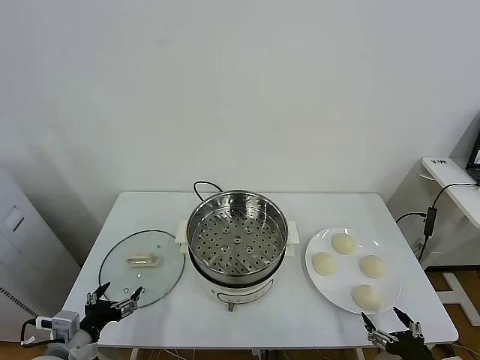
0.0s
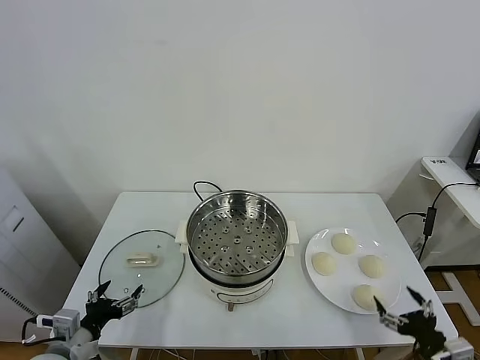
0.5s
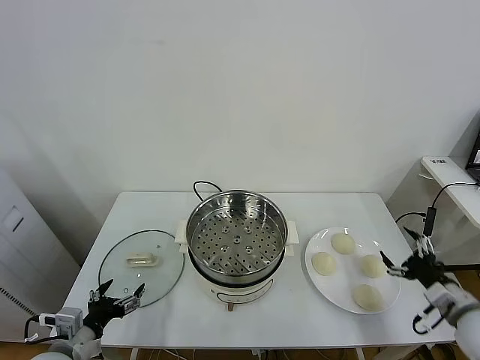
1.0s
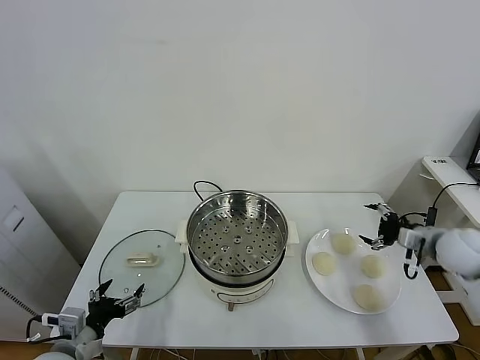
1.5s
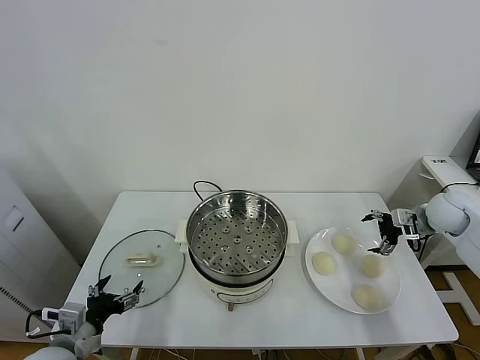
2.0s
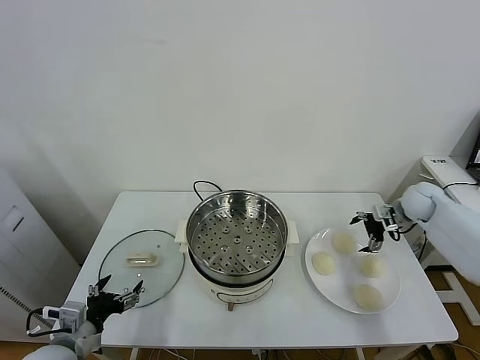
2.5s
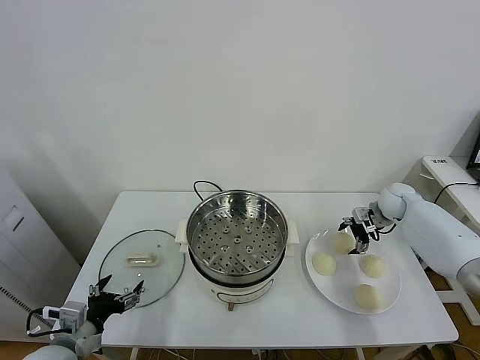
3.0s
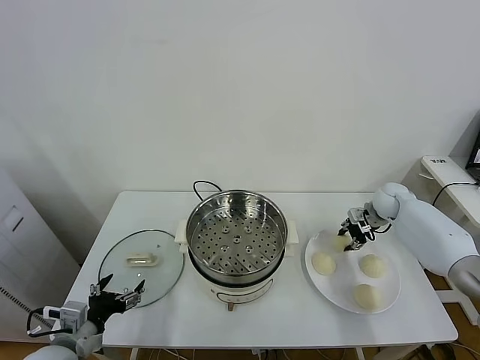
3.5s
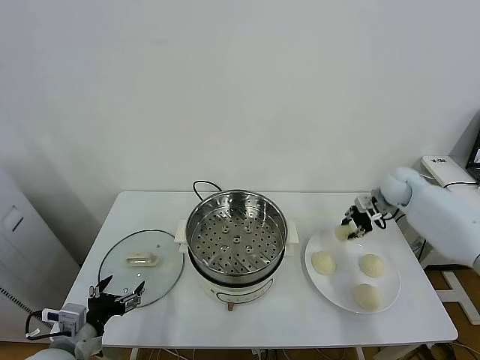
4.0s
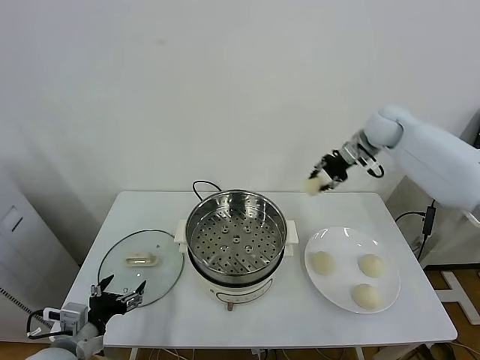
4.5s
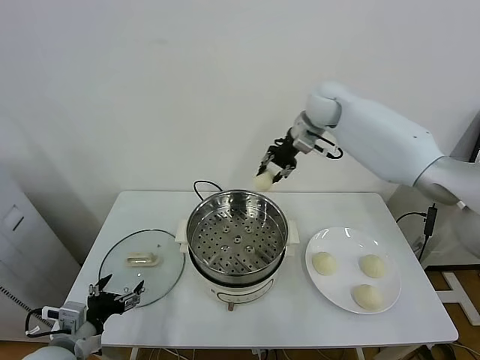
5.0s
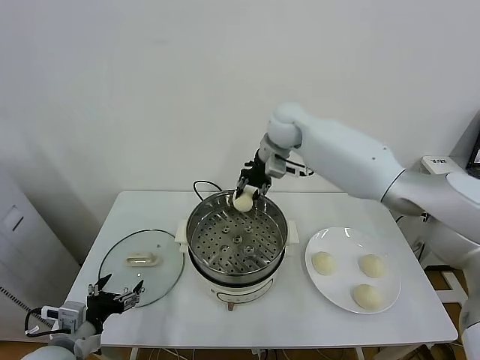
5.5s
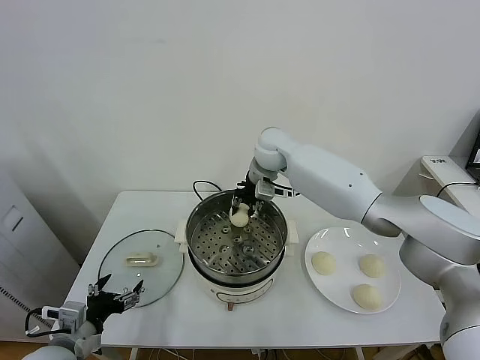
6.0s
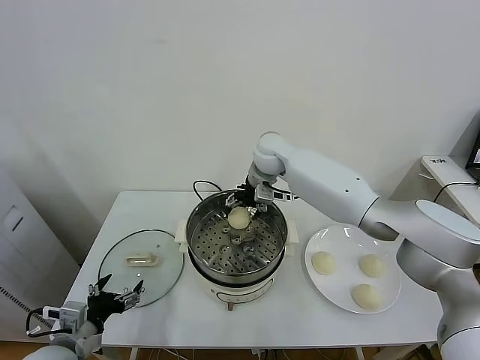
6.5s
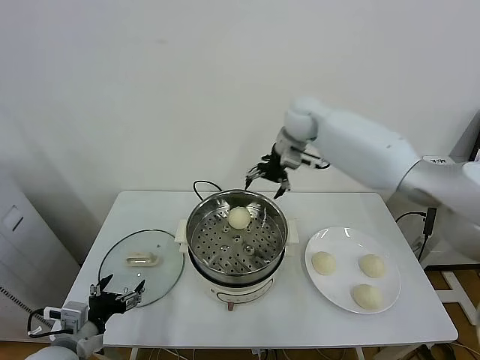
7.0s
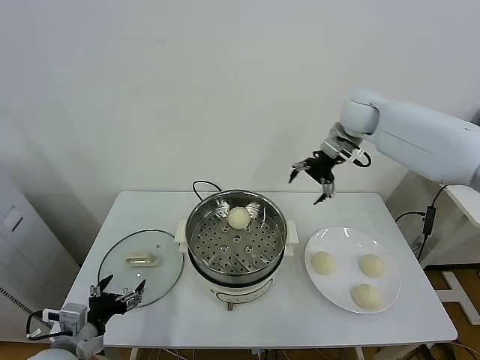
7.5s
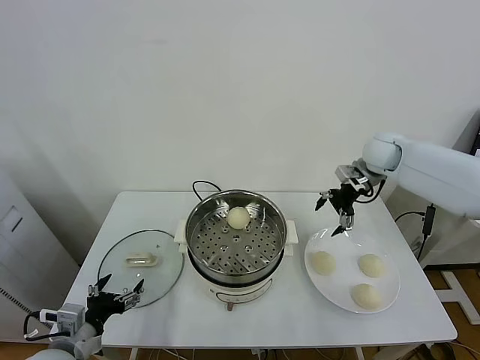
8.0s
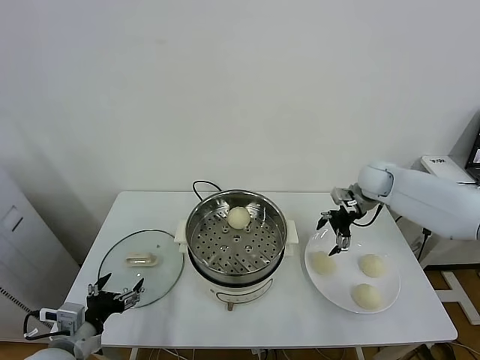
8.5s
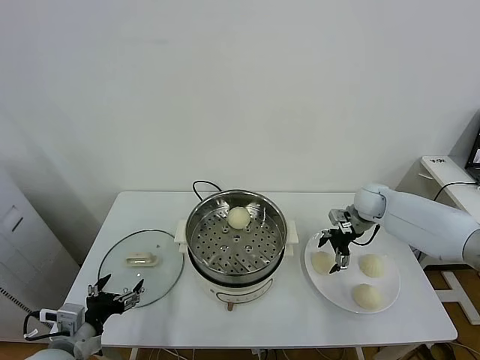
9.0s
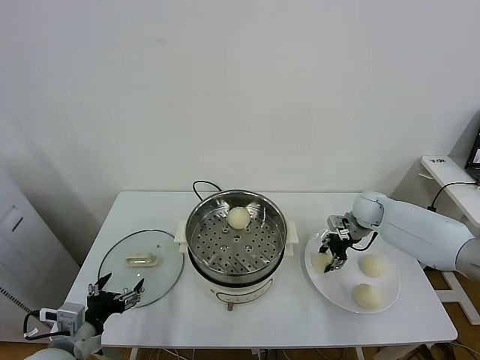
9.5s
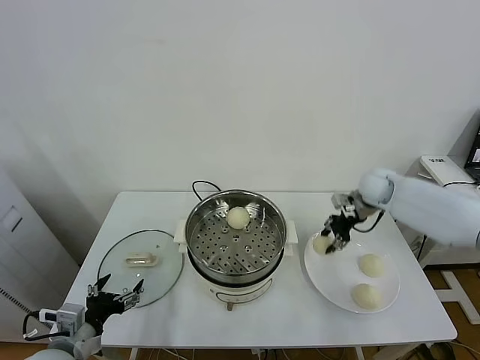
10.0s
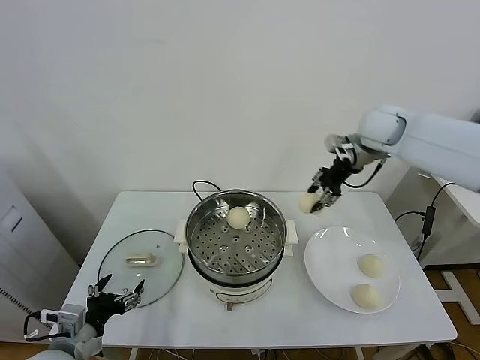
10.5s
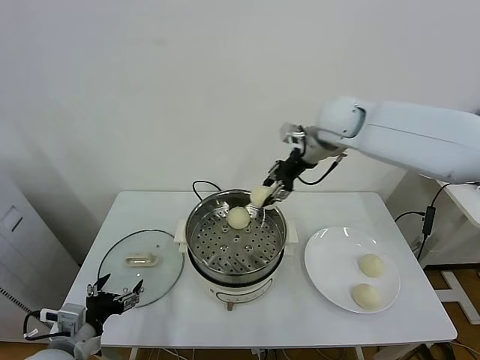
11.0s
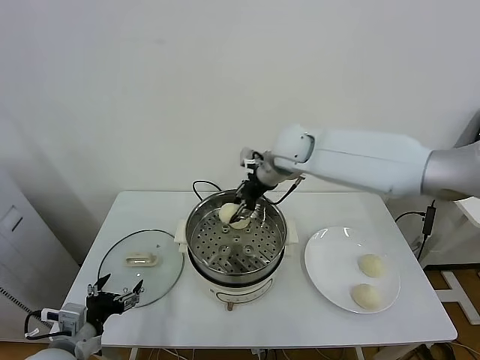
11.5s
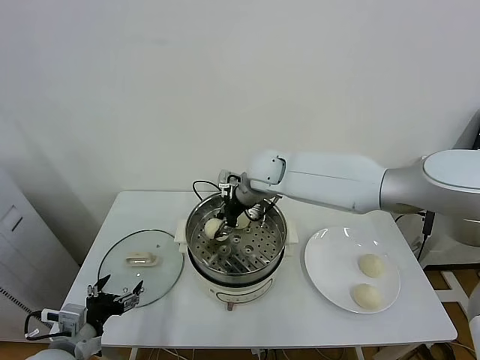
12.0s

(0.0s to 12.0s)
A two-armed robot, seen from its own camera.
Task of the whole recording: take steamed baozi put them in steamer.
Step, 0.0s - 3.0s: Grasp the baozi in the plate with right gripper.
Step, 3.5s - 6.5s: Place the baozi on the steamer with right gripper.
Step, 7.0s - 9.0s: Grasp the baozi in the plate with right gripper.
2.0s - 4.0s: The right gripper moves forward and to the left, approximately 10 cm, and closes.
4.0s - 6.0s: The right gripper heads to the left, covering some 35 cm.
6.0s - 8.0s: The right gripper moves to the right, roughly 25 cm, and opens its fingers.
8.0s - 10.0s: The right gripper travels downward and back again, about 15 cm each way, and closes its fingers.
10.0s - 12.0s: The right gripper is displaced to the left by roughly 30 cm.

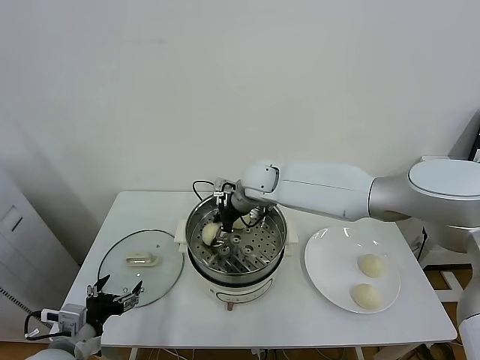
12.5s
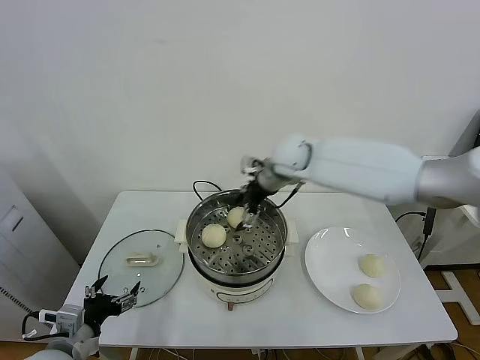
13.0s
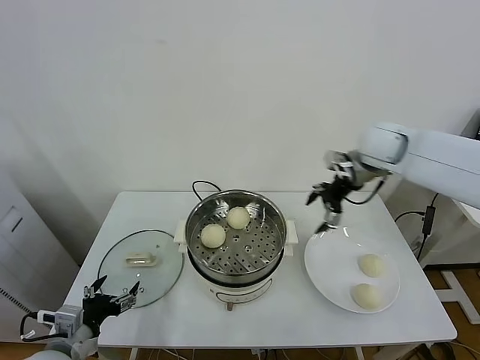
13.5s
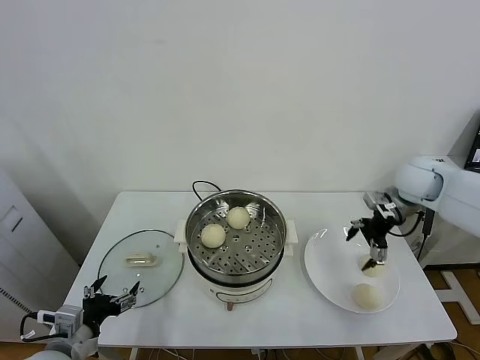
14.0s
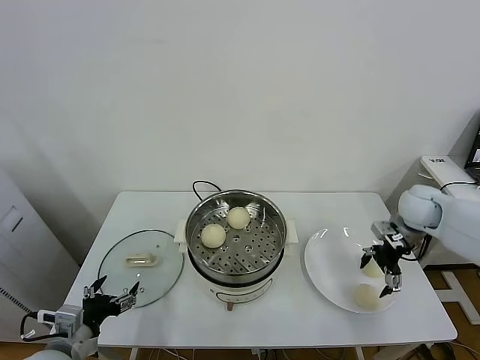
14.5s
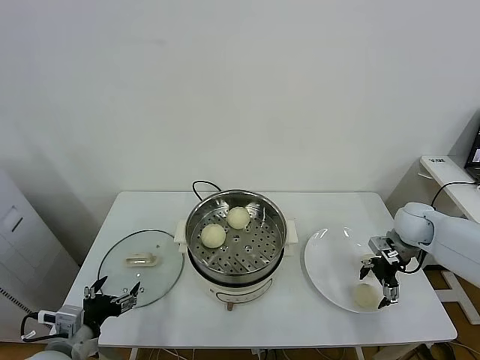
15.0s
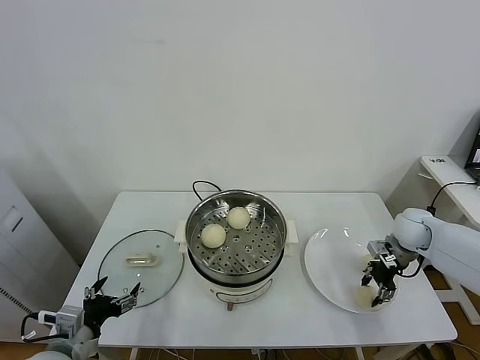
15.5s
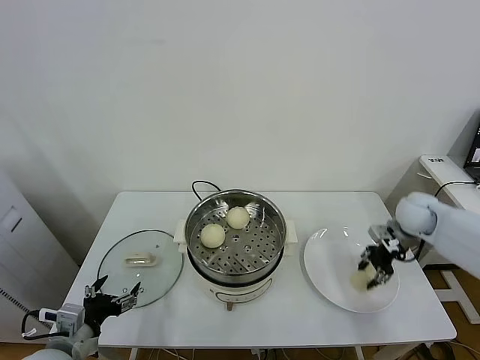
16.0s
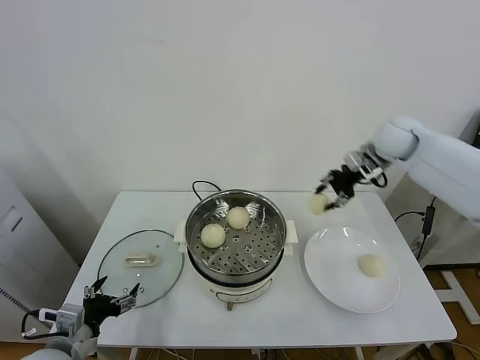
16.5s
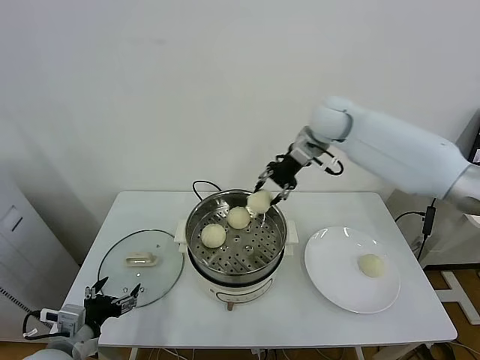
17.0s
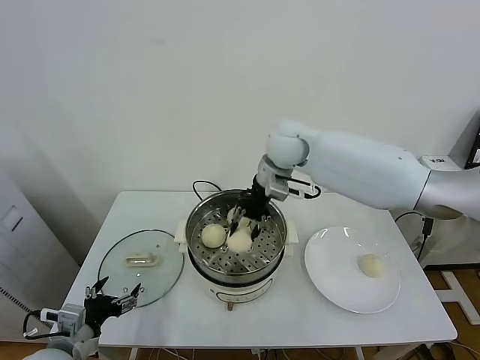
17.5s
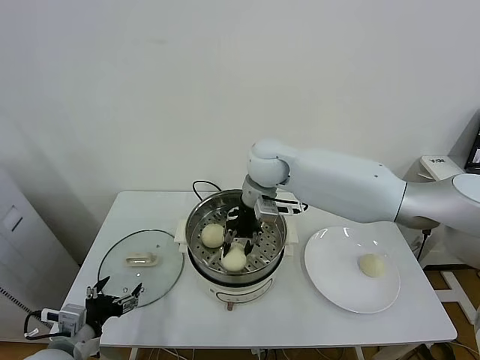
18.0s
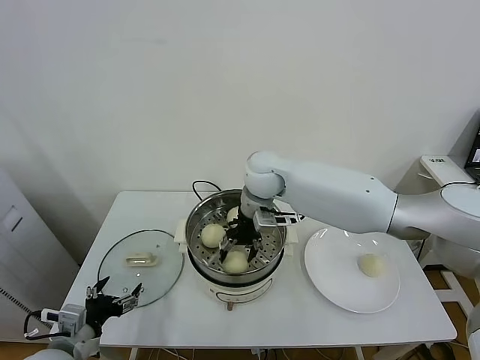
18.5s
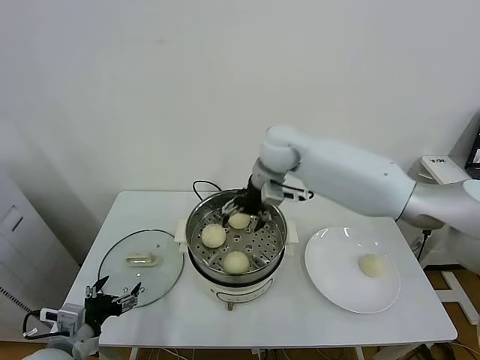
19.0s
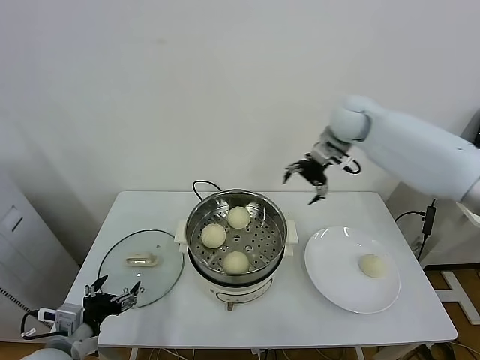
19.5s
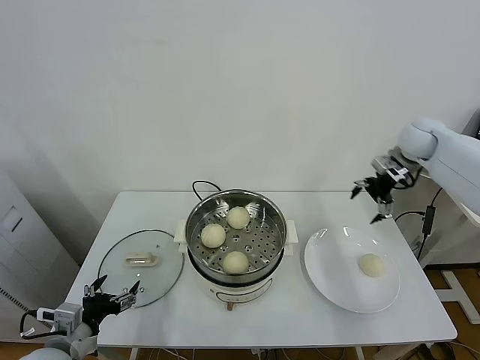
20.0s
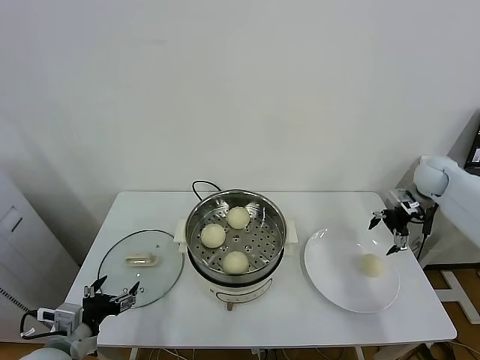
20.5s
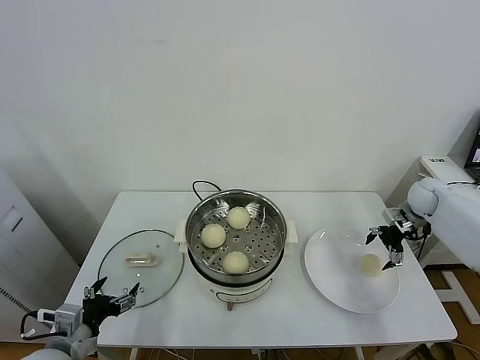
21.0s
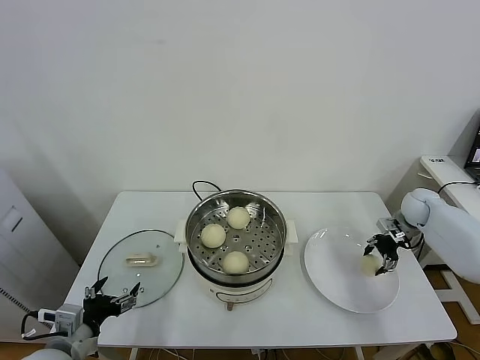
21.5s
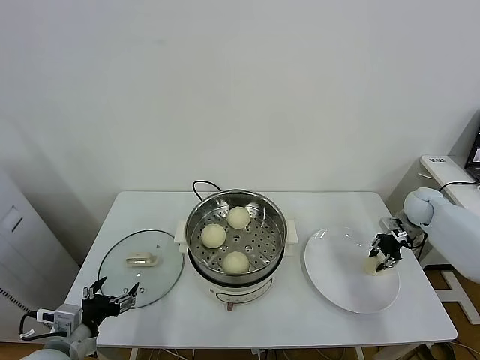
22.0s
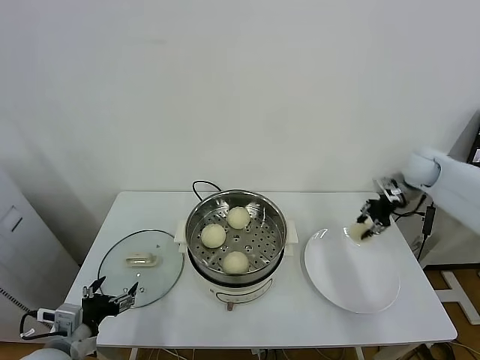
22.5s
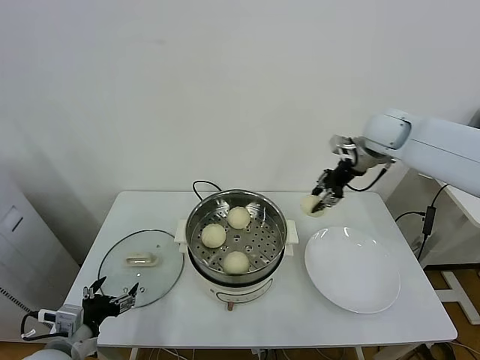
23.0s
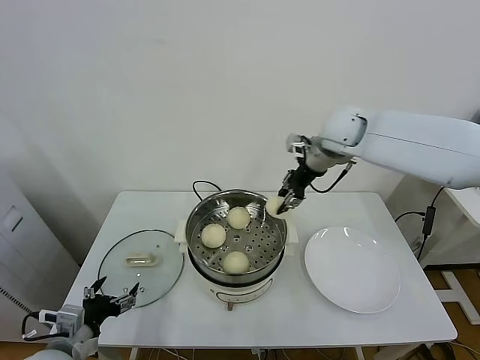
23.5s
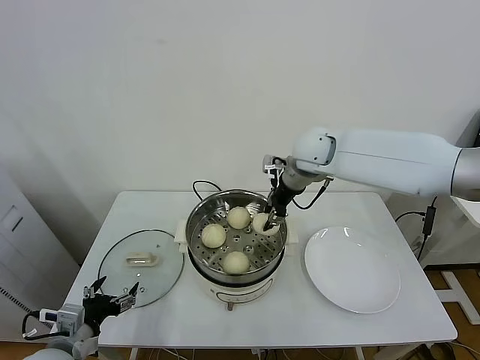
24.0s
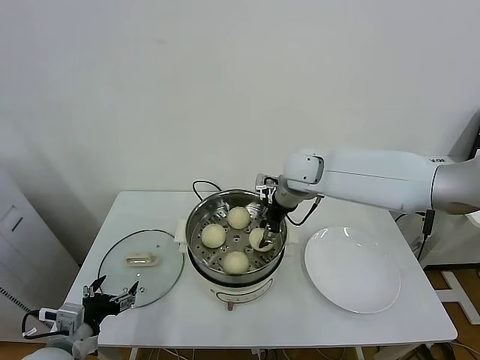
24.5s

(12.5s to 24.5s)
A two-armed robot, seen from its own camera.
Task of the whole recording: take steamed baozi put them in steamer.
Step, 13.0s - 15.0s: Grasp the baozi in the plate with right gripper.
Step, 15.5s - 18.5s: Place the baozi on the steamer with right gripper.
Step, 19.0s - 21.5s: Grasp the baozi in the plate with right gripper.
12.5s - 14.5s: The right gripper travels to the right by approximately 35 cm.
14.5s - 16.5s: The right gripper moves upward, to the left and forward, approximately 20 cm, and closes up.
16.5s - 18.5s: The right gripper is displaced to the left by some 30 cm, and opens its fingers.
18.5s - 20.5s: The right gripper heads to the right, covering roughly 40 cm.
20.5s - 22.5s: The right gripper moves to the left and upward, approximately 10 cm, and closes.
22.5s - 24.5s: The right gripper heads to the left, covering approximately 30 cm.

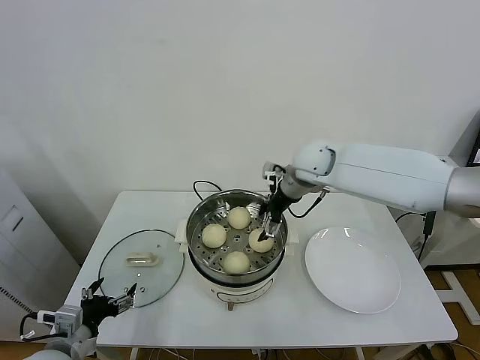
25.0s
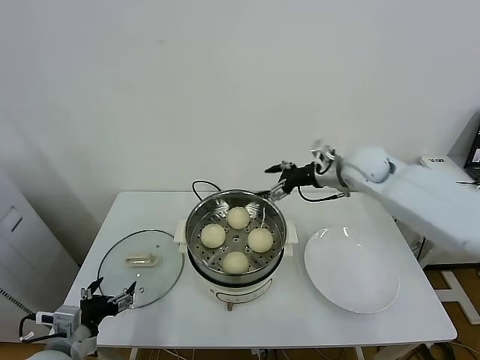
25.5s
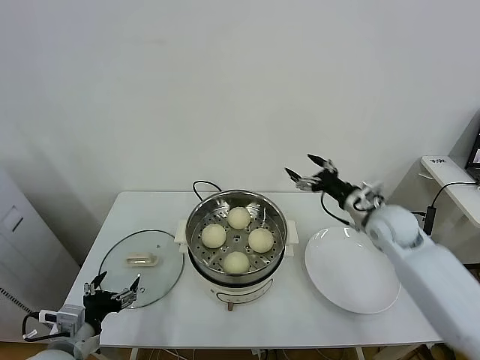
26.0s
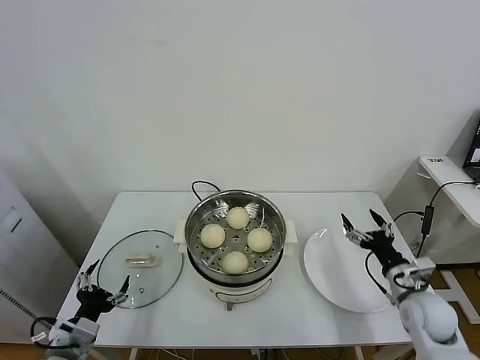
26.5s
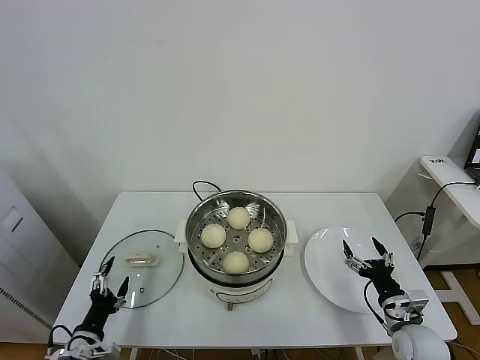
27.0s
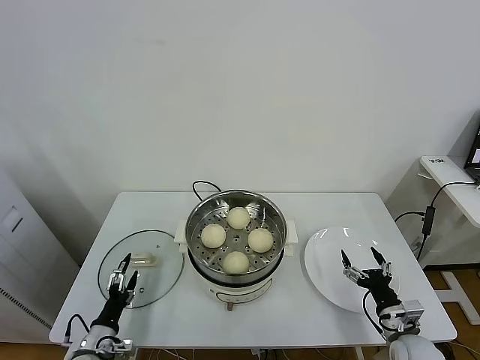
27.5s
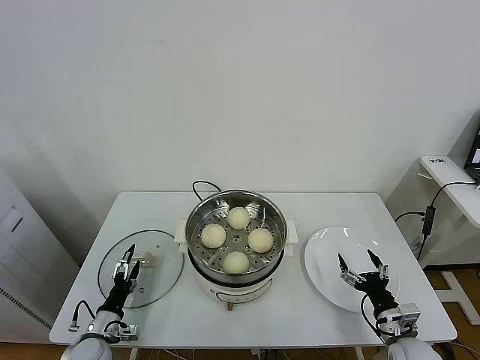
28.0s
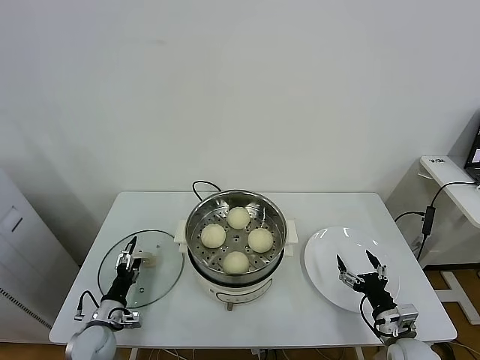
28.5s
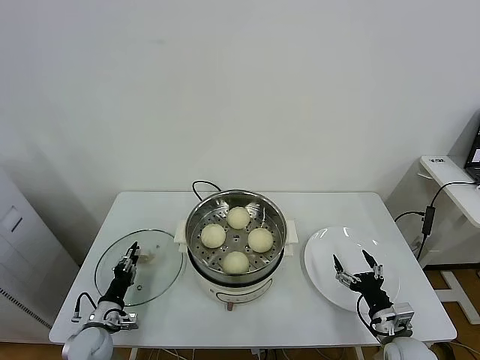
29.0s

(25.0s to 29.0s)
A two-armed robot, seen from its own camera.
Task of the whole recording: take steamed baozi put them in steamer.
25.0s - 27.0s: The left gripper shifts some 10 cm downward, while the right gripper heads backward, downward and to the right, covering roughly 50 cm.
27.0s - 29.0s: The left gripper travels forward and downward by approximately 10 cm, and closes.
